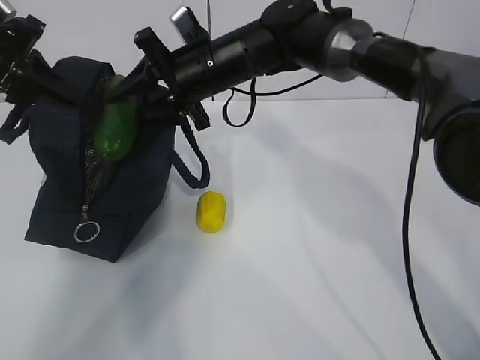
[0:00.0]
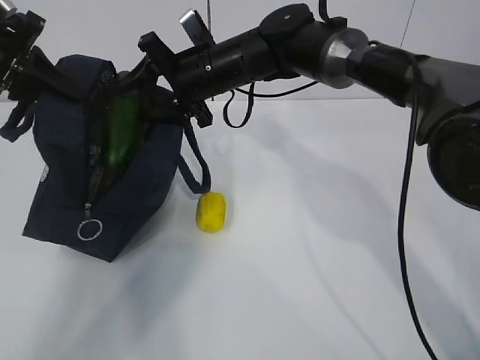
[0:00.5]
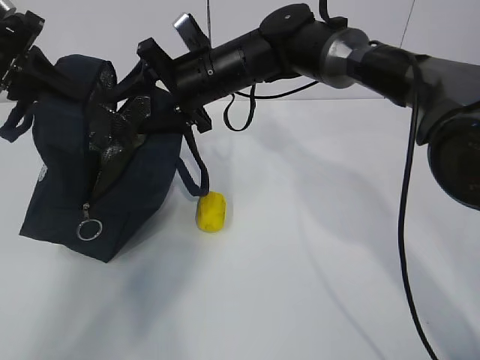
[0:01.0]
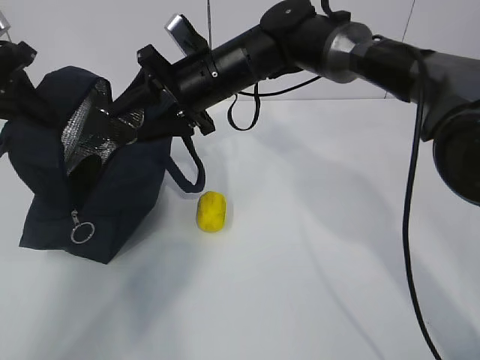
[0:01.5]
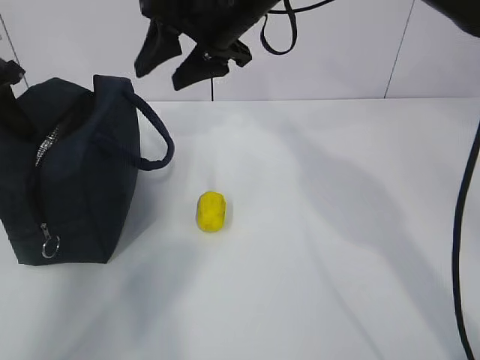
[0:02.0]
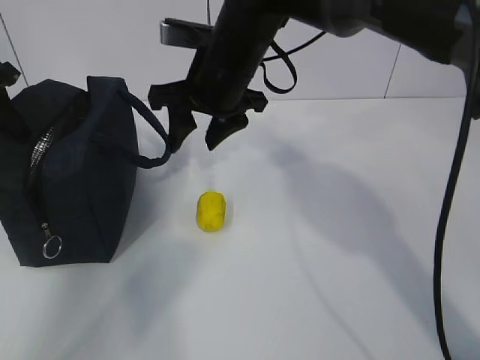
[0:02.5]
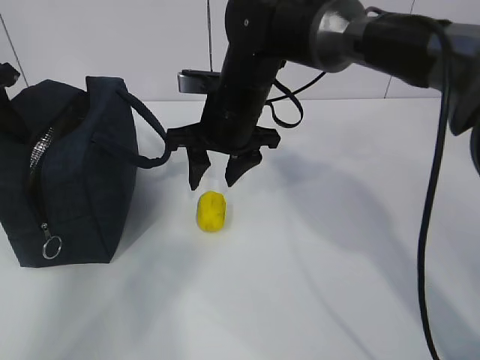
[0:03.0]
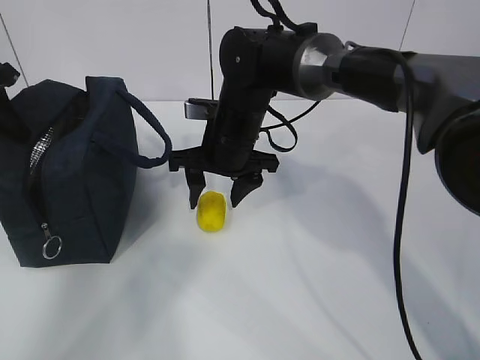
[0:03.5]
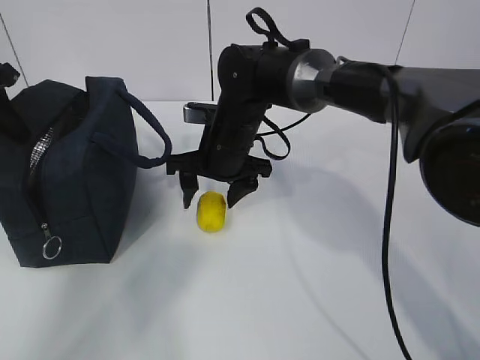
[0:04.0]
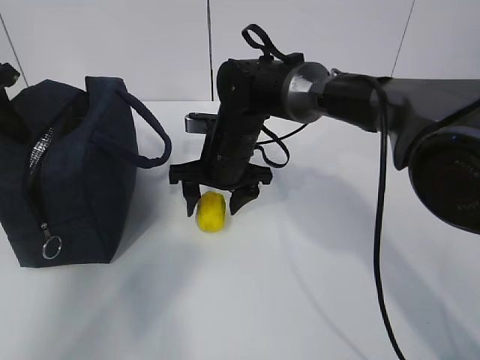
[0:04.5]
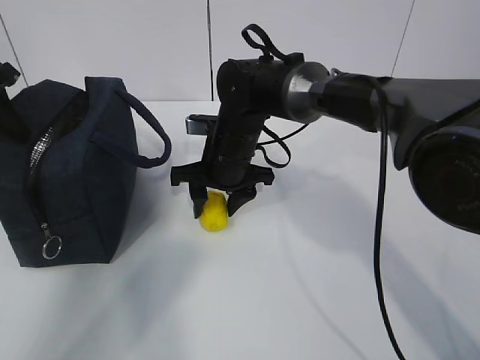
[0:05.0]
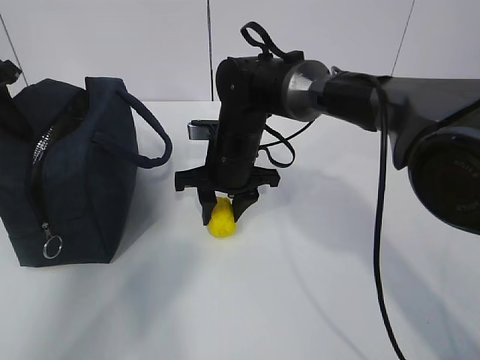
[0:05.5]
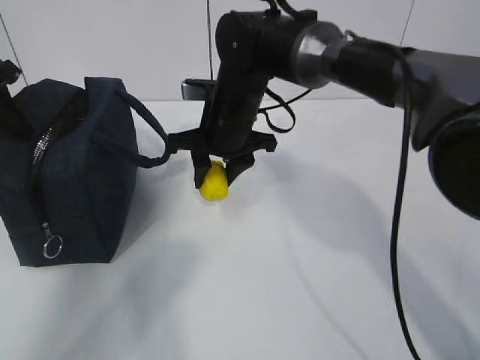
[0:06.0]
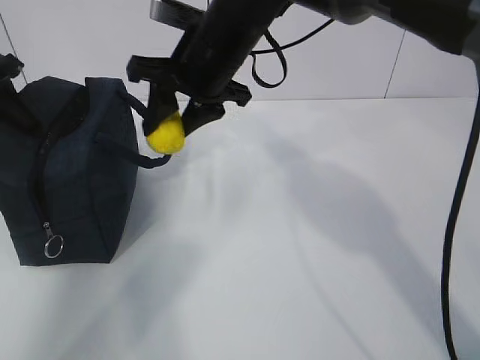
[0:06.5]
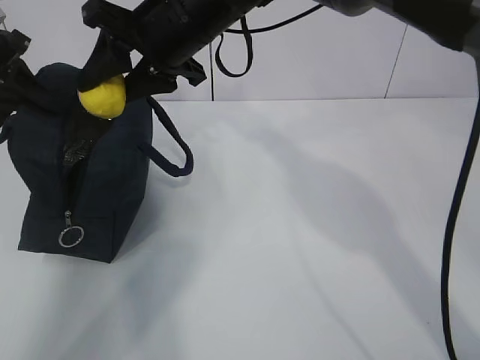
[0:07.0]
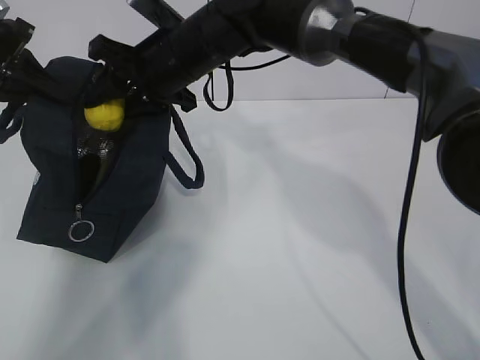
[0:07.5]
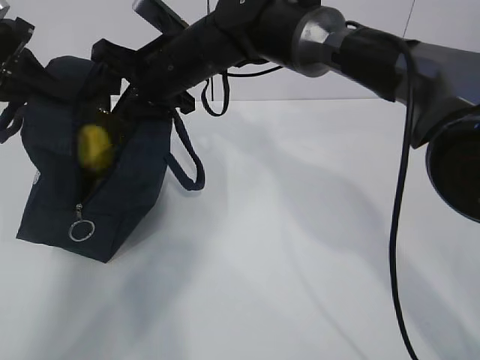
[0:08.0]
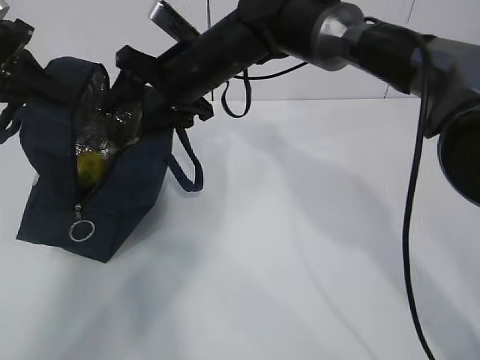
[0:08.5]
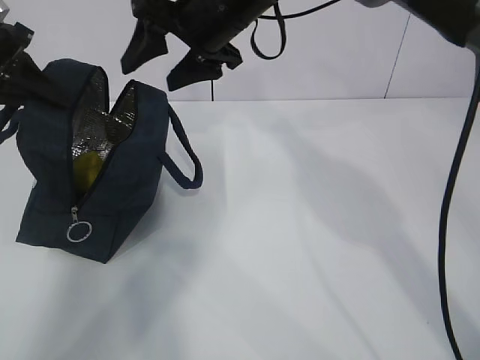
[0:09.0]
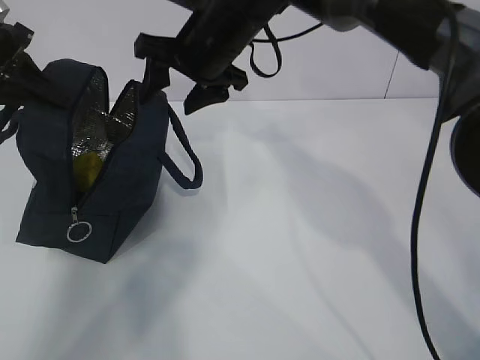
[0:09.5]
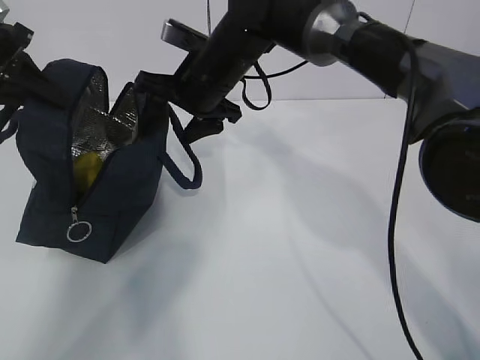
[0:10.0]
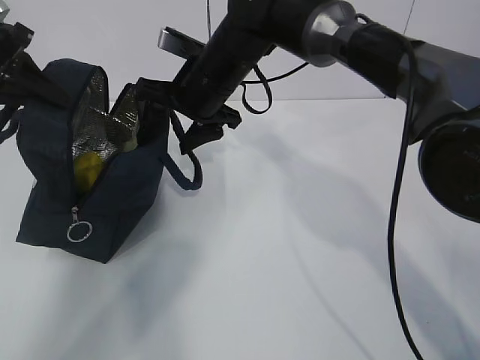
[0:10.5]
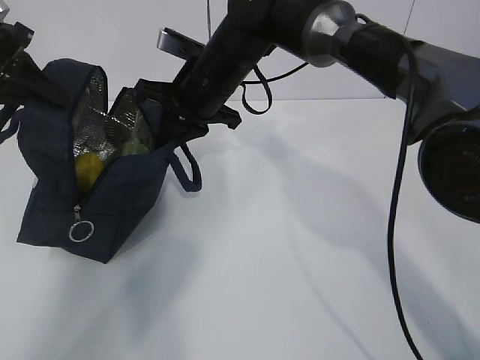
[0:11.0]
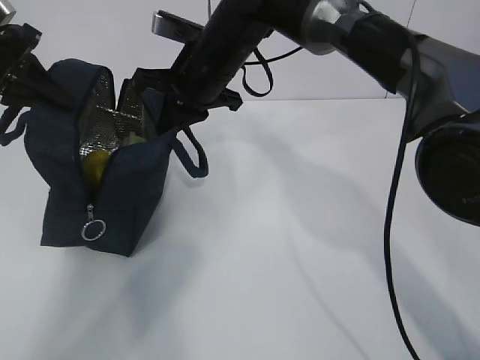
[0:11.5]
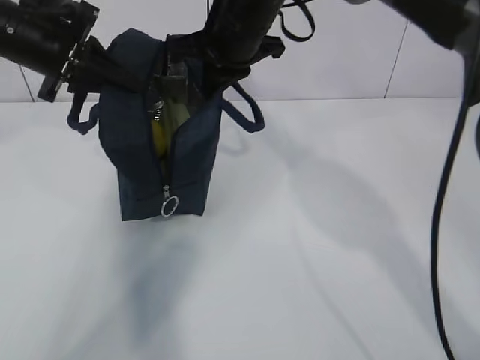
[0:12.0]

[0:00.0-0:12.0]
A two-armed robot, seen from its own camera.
Step, 1.5 to 3.0 s: Grab the lunch bag with your right hand.
Step, 3.5 to 5.5 s: Move the lunch bag to the right.
0.0 to 2.0 s: The right gripper heads upward, covering about 10 cm.
2.0 to 4.0 s: The right gripper goes approximately 15 cm downward.
4.0 to 6.0 s: The right gripper closes its fingers.
6.0 to 8.0 s: The right gripper is displaced upward and to the left by roughly 10 cm.
8.0 to 10.0 s: The right gripper goes upward and returns, some 5 cm each way.
10.0 to 12.0 s: The left gripper goes roughly 10 cm to the right, while the right gripper shifts roughly 5 cm upward, and closes up.

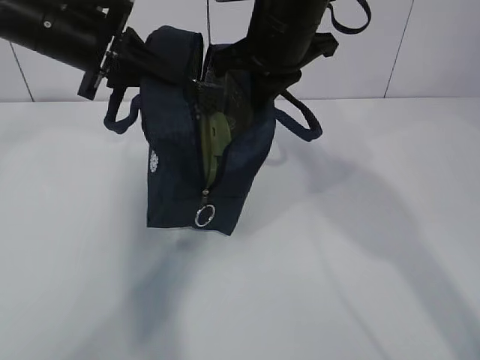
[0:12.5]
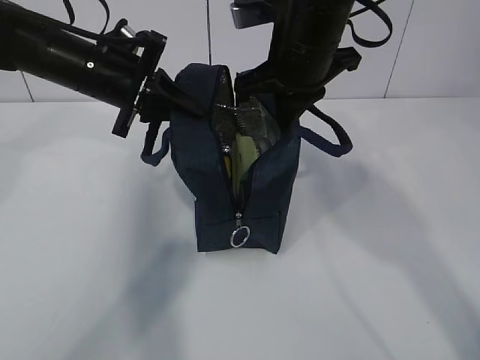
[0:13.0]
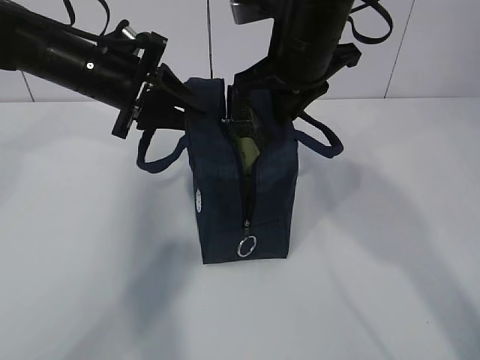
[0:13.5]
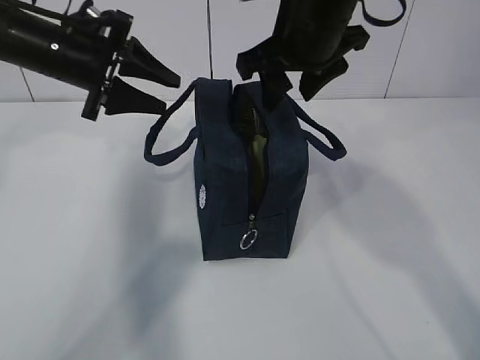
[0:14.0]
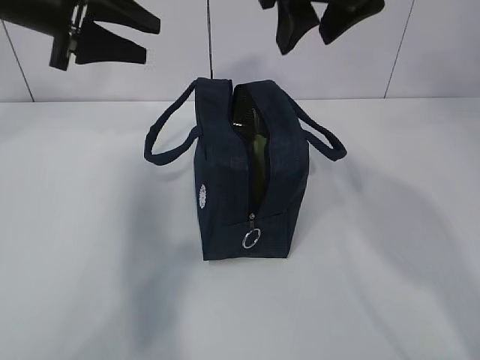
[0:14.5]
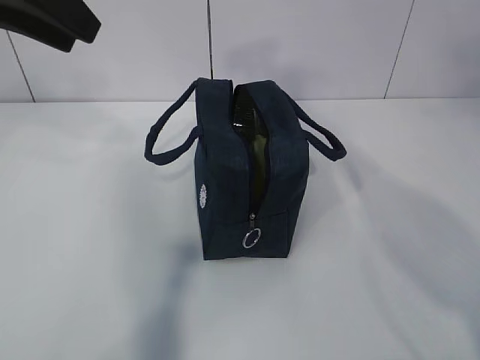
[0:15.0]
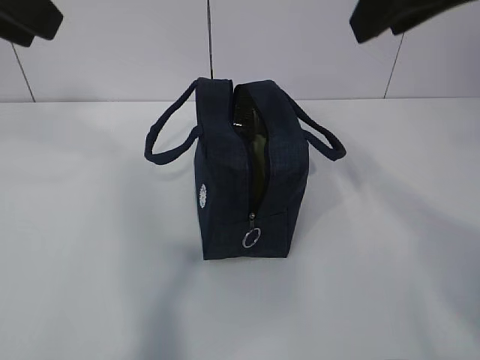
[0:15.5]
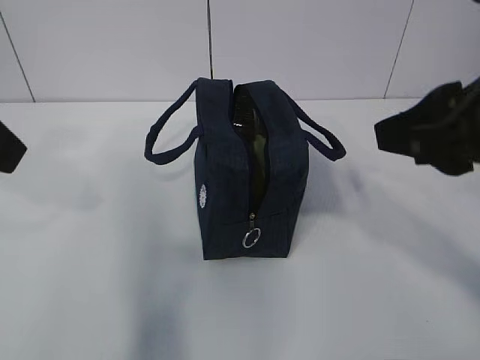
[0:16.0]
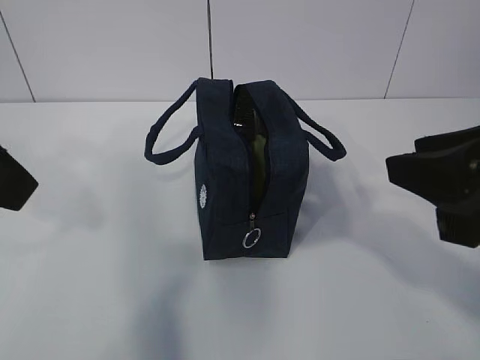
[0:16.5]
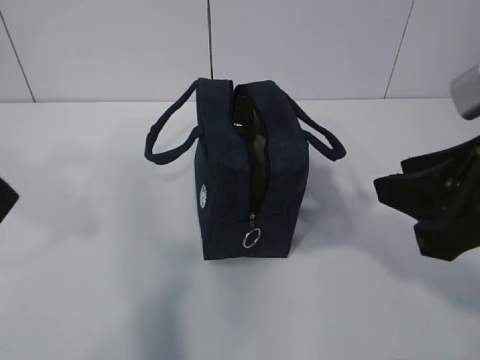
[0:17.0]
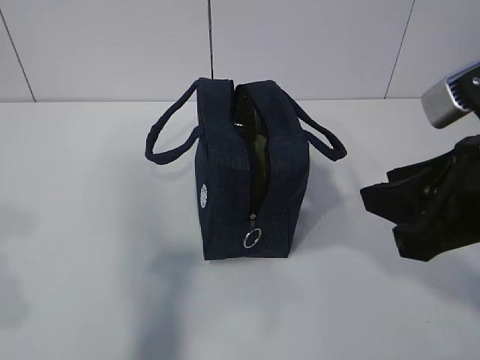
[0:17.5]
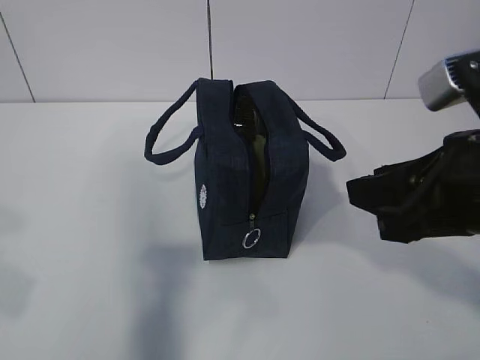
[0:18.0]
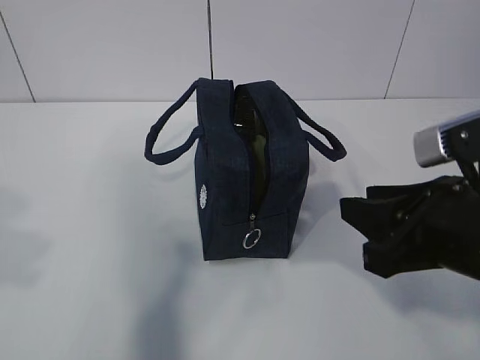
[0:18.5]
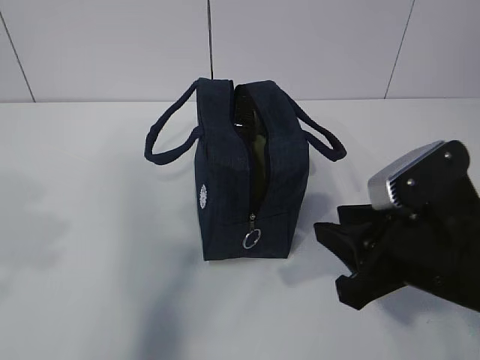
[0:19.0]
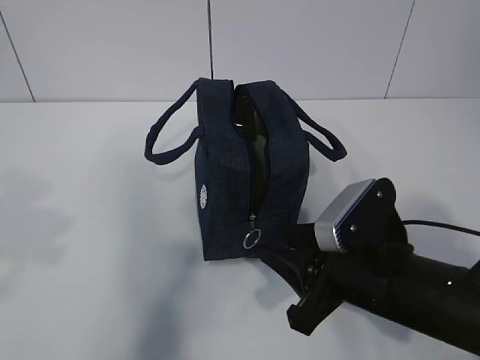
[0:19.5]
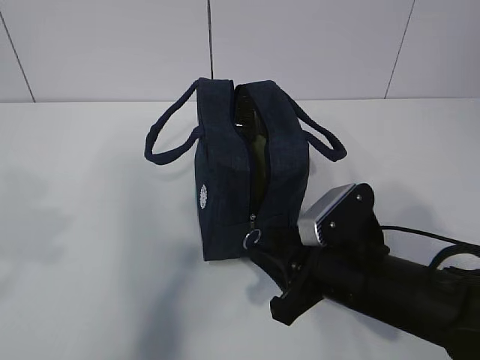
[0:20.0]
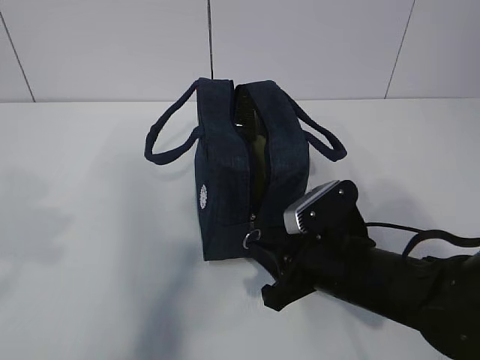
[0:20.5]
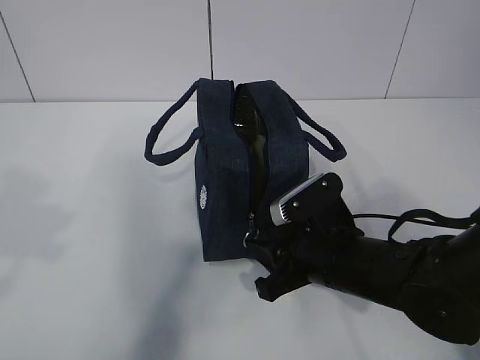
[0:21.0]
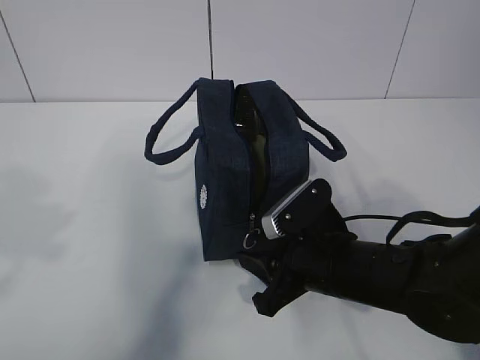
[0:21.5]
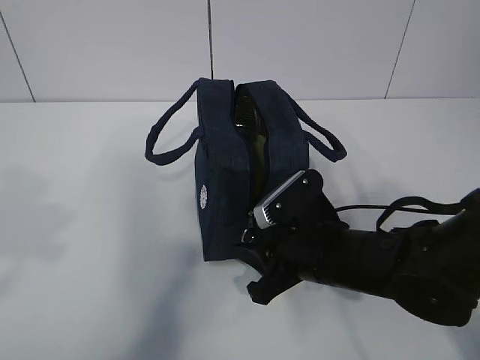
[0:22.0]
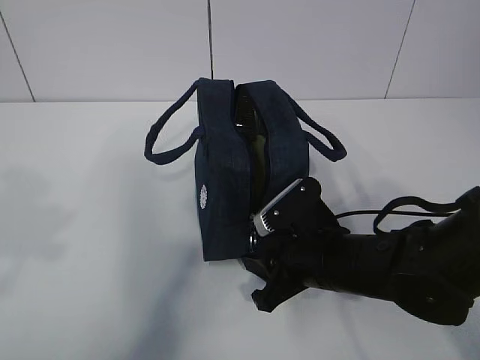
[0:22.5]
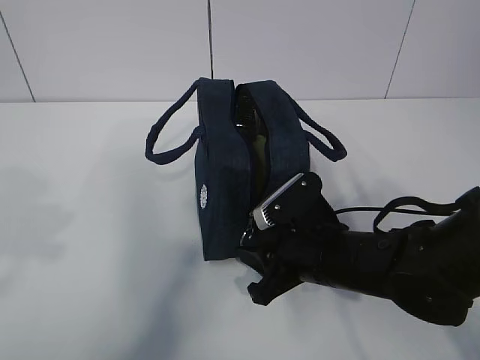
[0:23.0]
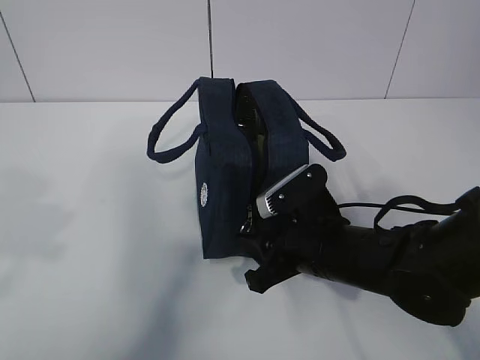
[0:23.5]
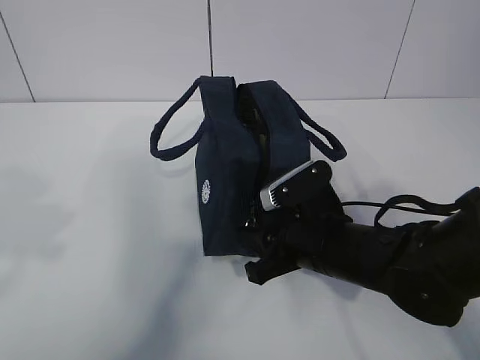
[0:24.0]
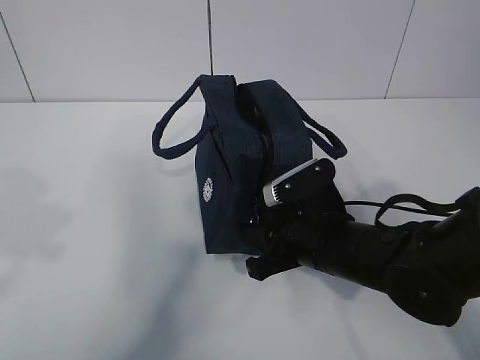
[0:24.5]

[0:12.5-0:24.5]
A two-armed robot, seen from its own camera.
12.5 to 14.5 s: The left gripper opens up. Meanwhile the right gripper shifts some 10 cm upward and backward, and opens its fingers.
14.5 to 16.5 s: The right gripper goes some 20 cm backward, downward and to the right. Meanwhile the left gripper moves backward, about 20 cm, and closes.
16.5 to 18.5 s: The right gripper goes some 10 cm downward; the left gripper shifts some 10 cm backward, downward and to the left.
18.5 to 20.5 s: The right gripper shifts about 15 cm downward, forward and to the left.
20.5 to 24.5 s: The grippers move only a little.

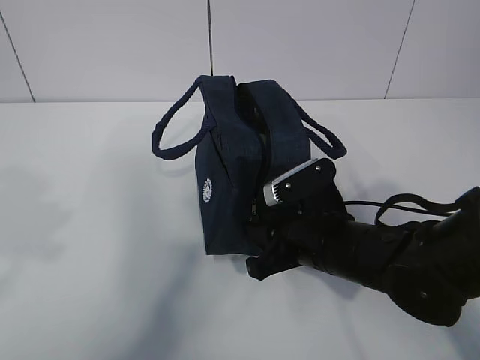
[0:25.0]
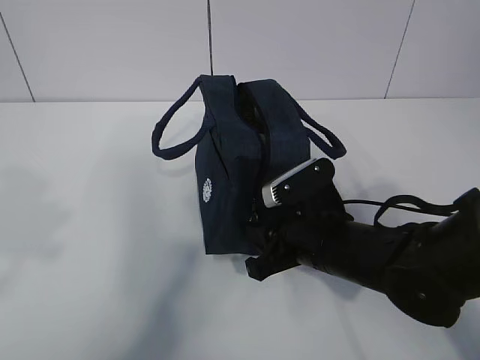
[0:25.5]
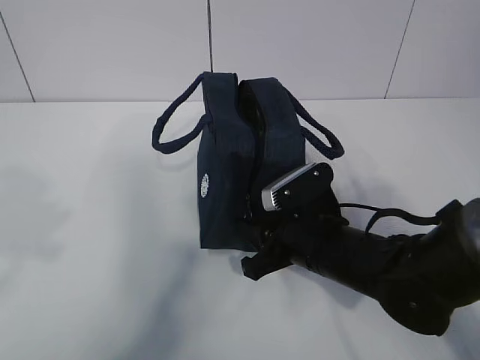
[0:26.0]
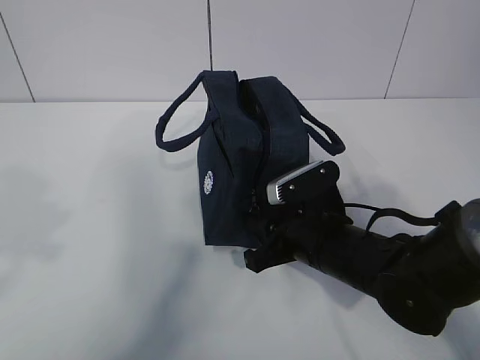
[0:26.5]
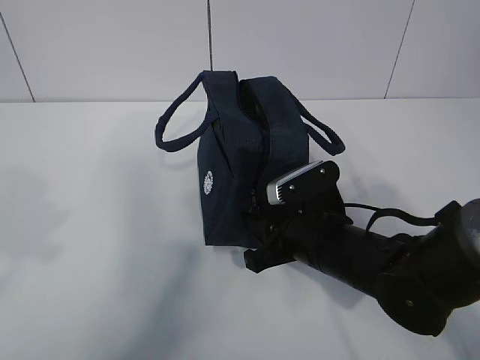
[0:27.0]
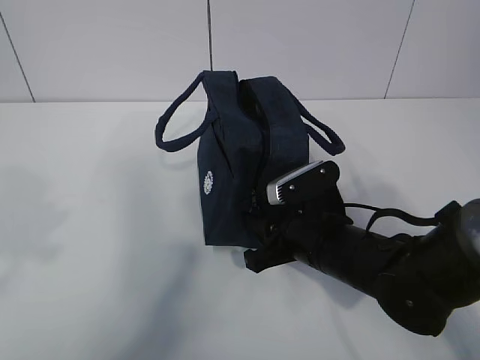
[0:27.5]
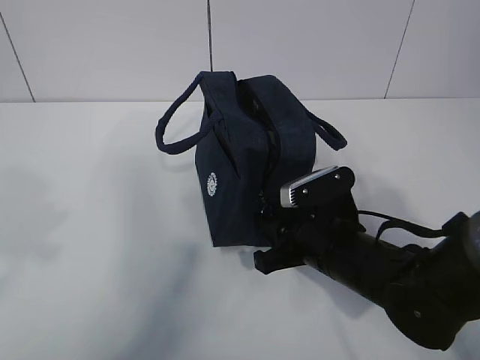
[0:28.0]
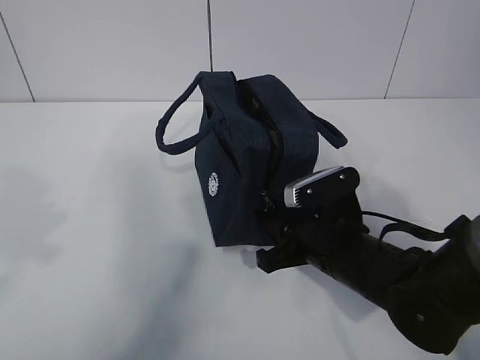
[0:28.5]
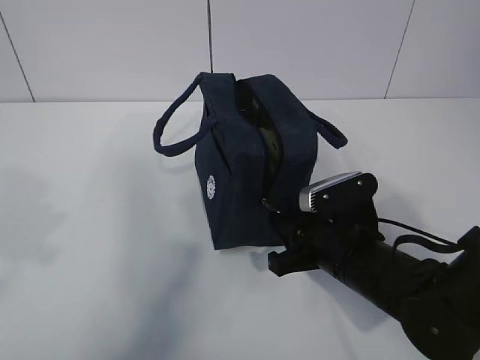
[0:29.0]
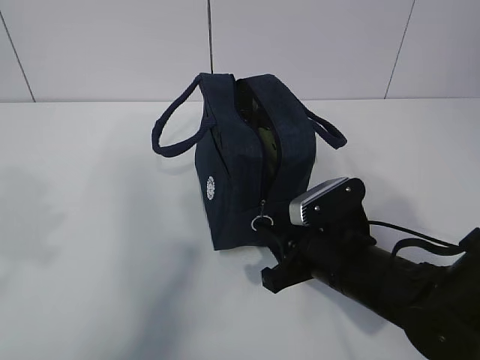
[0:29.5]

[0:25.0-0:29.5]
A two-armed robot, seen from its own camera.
25.0 to 29.5 s: The grippers stay close to where they were, moving slightly.
